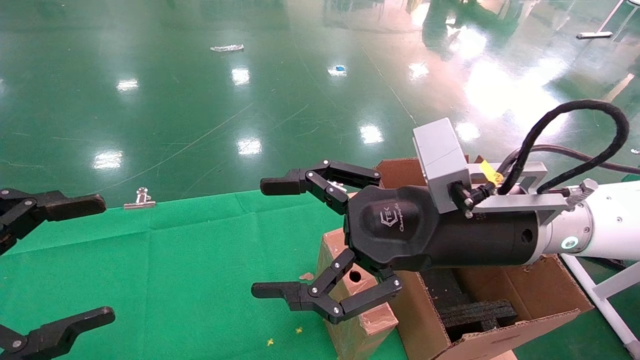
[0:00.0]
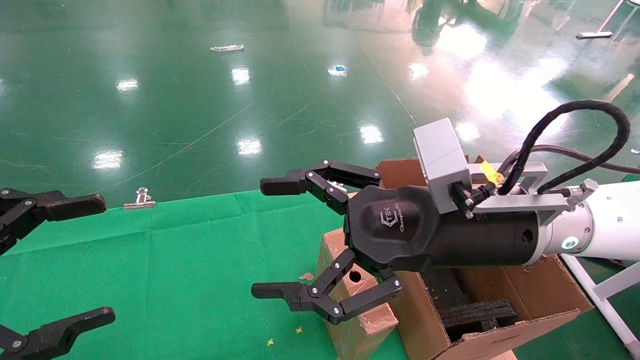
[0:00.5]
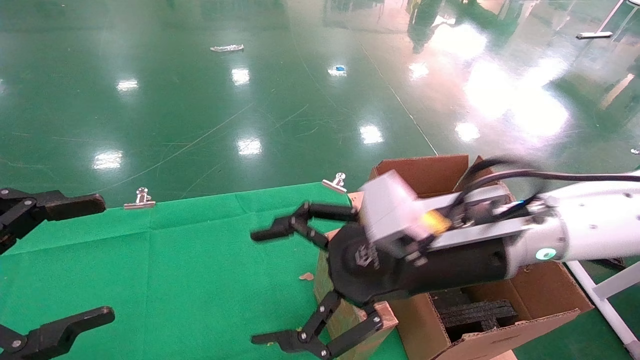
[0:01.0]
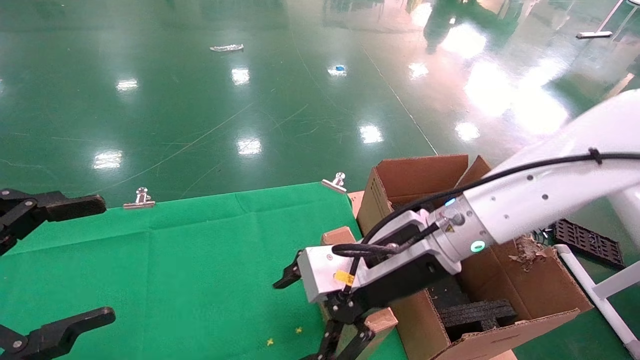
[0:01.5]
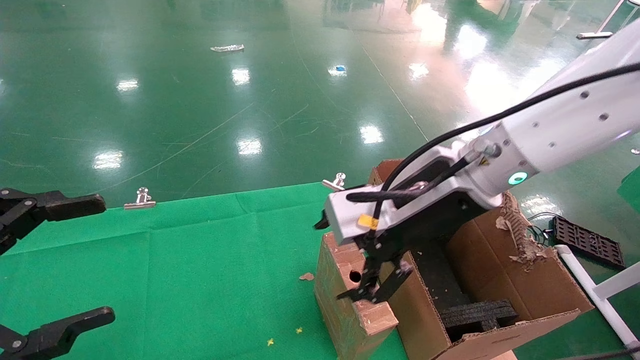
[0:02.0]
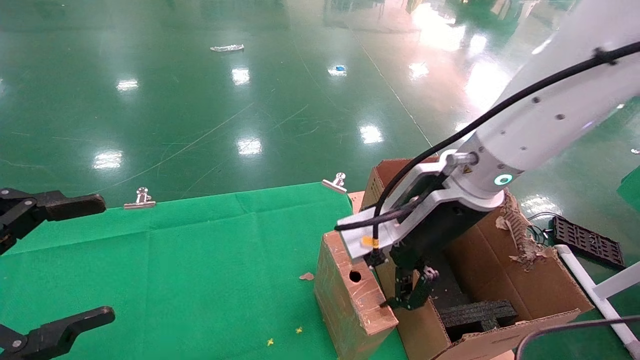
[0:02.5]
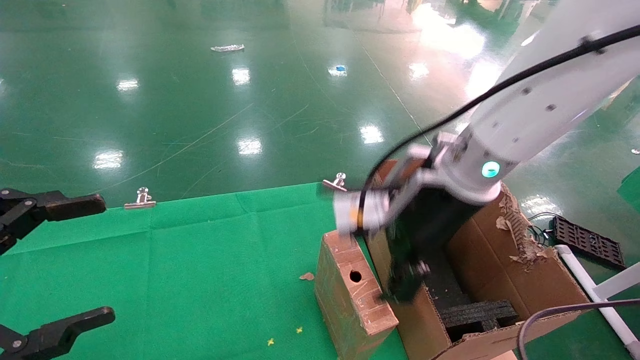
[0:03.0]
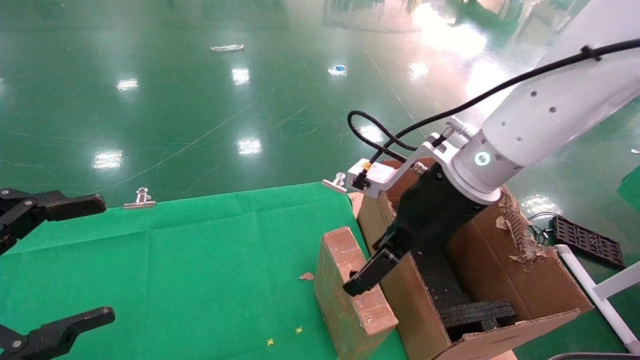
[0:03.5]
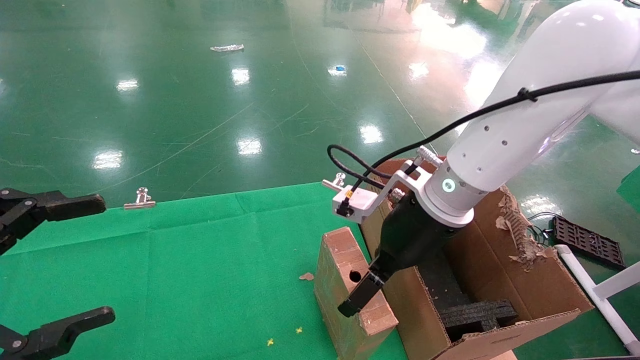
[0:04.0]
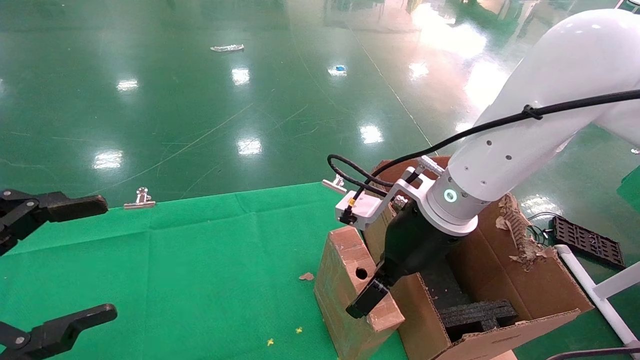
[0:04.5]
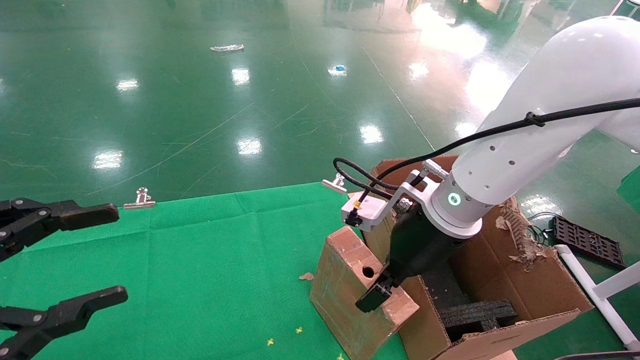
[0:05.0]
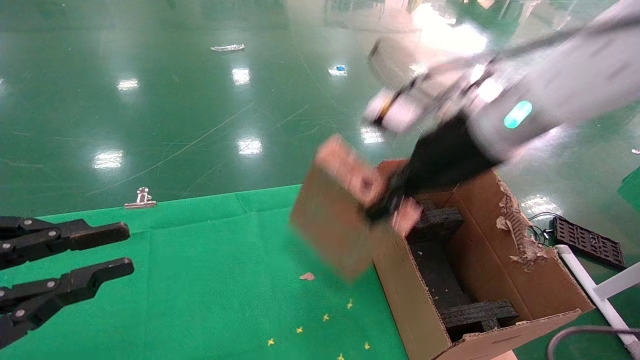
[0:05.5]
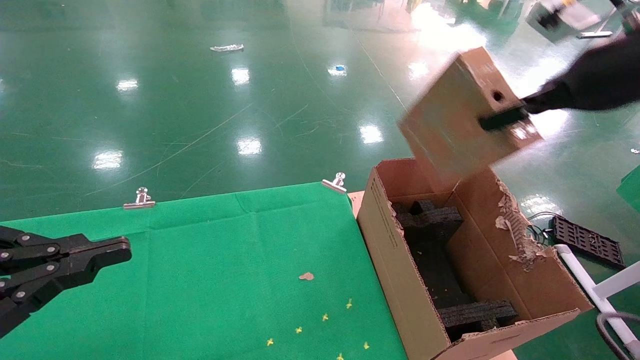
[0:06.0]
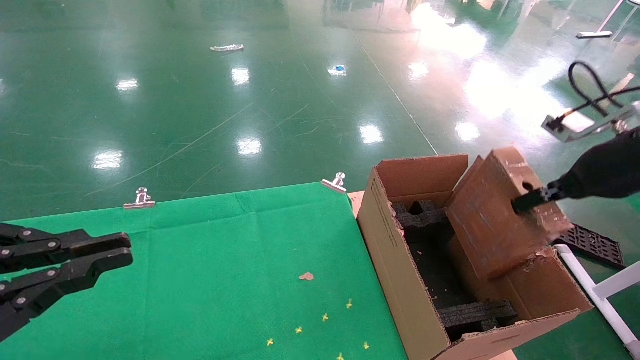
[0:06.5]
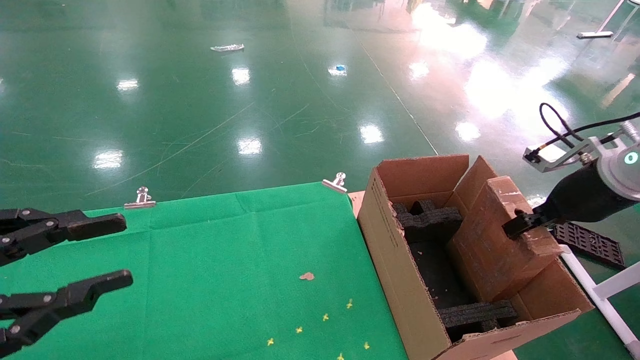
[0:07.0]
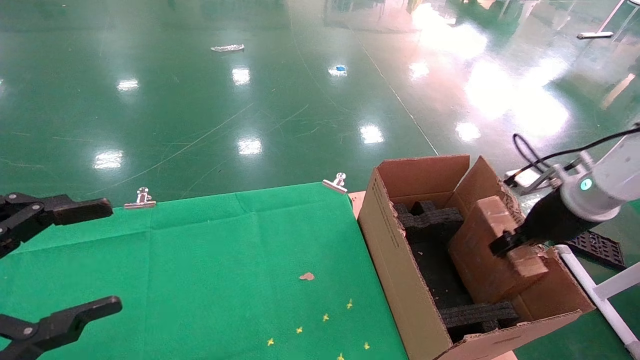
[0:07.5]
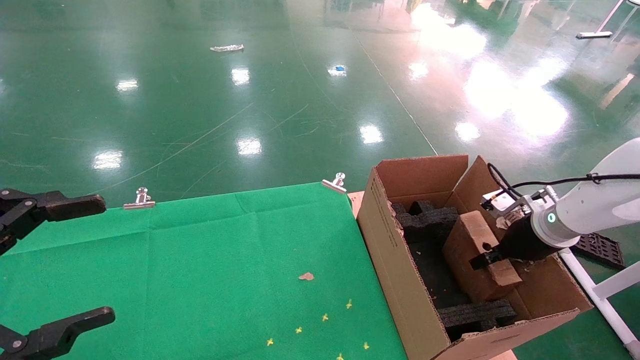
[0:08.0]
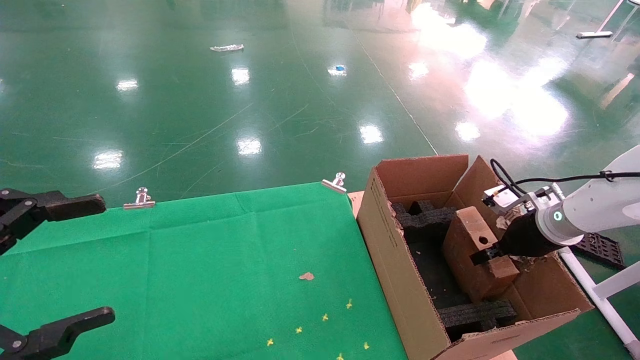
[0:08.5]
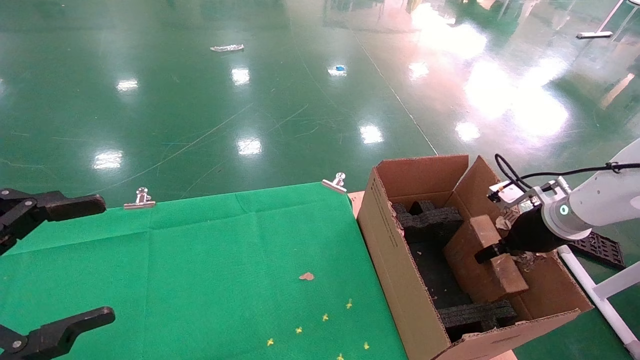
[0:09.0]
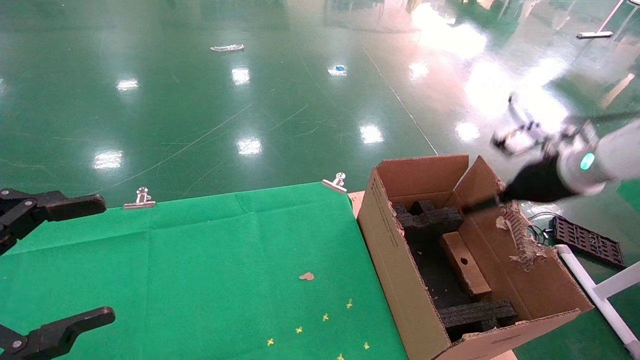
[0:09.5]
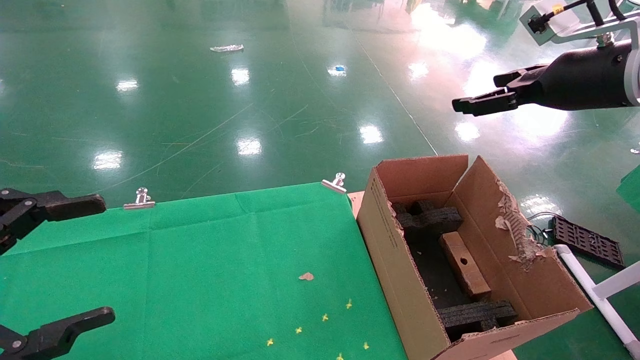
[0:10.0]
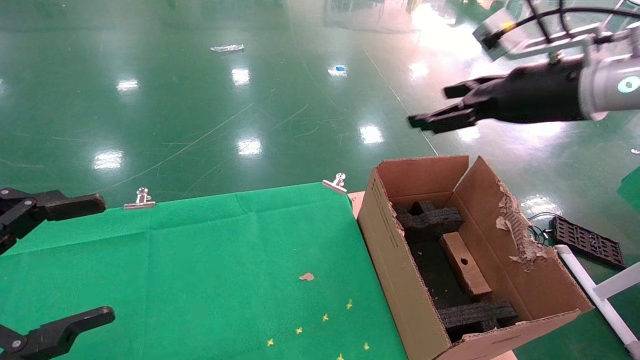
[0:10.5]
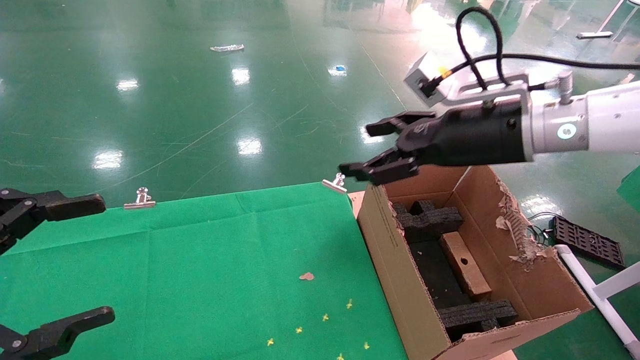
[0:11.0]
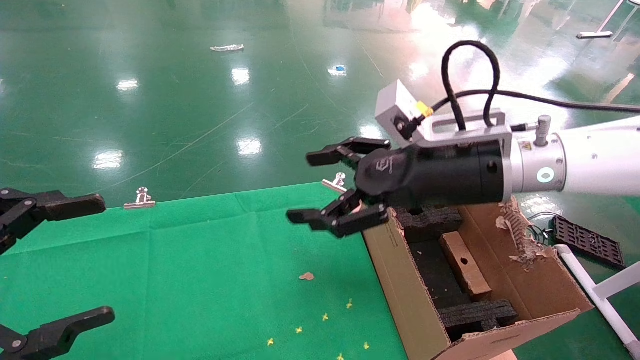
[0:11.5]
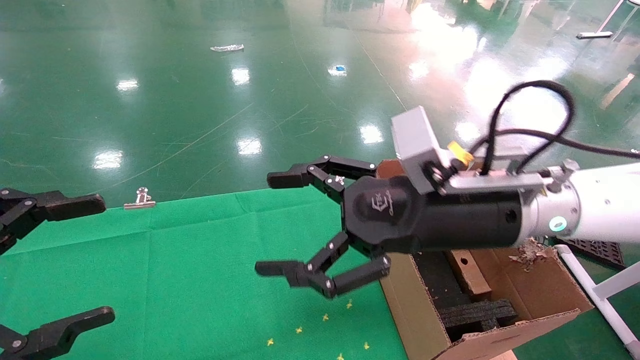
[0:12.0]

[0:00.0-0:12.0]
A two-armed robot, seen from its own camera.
Task of the whole recording: using a robotic arm to pick up a cardboard box and palace it the carton.
Step, 0:01.0 to 0:05.0: Pick up the mouse and the power cord paper box.
Step, 0:05.5 to 0:09.5: Place the mouse and the power cord paper box into the container.
0:00.0 to 0:02.0: The right gripper ends up some 5 cm from where it was.
0:02.0 to 0:04.0: The right gripper changes place by roughly 5 cm.
0:04.0 to 0:06.0: The left gripper closes up; the right gripper travels to the right and upward by about 25 cm, and closes its fingers.
0:06.0 to 0:08.0: The left gripper opens up. Meanwhile the right gripper is displaced downward and forward by roughly 25 cm.
0:08.0 to 0:10.0: The right gripper shifts approximately 20 cm upward, and opens its fingers.
0:10.0 to 0:12.0: The right gripper is displaced to the left and downward by roughly 25 cm.

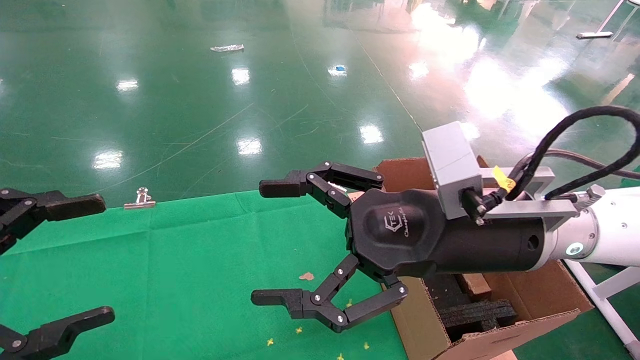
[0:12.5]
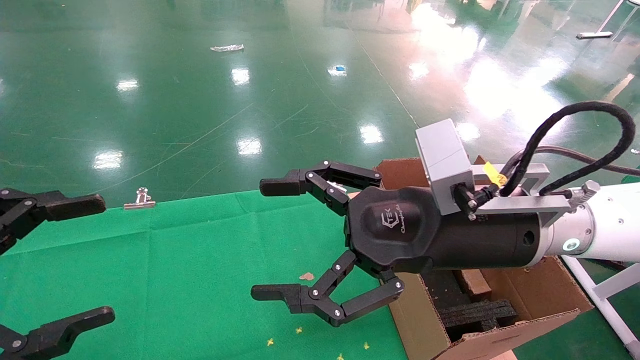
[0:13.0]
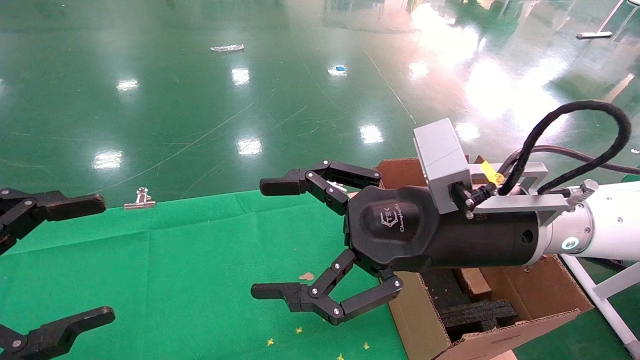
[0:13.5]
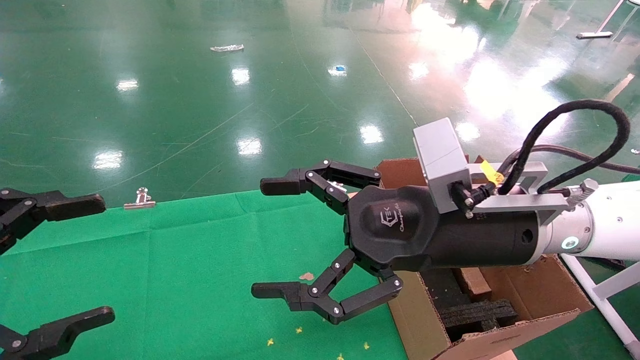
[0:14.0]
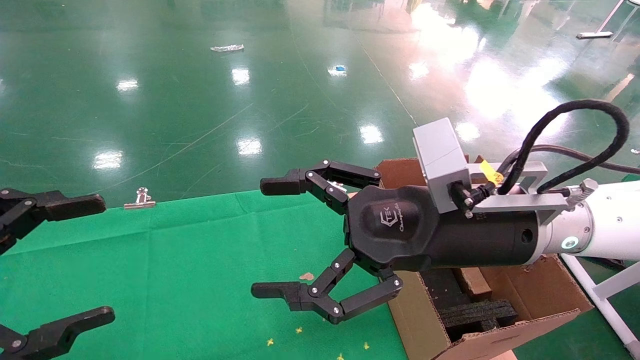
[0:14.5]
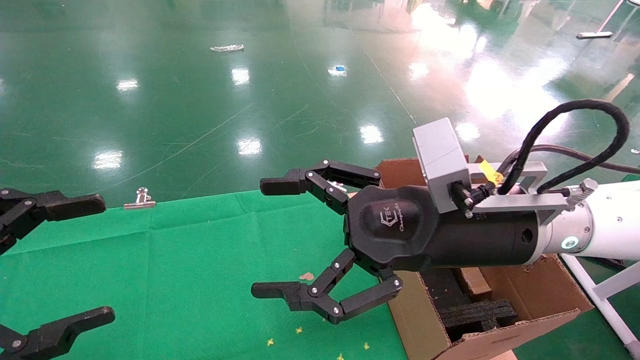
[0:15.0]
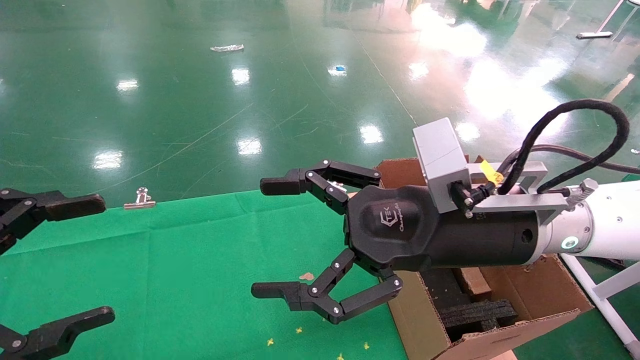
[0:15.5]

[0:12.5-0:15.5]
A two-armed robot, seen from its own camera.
Task of the whole recording: using a robotic arm to pick up a cardboard box and palace it the carton.
0:12.5 to 0:15.5: Both grippers stay about where they are.
